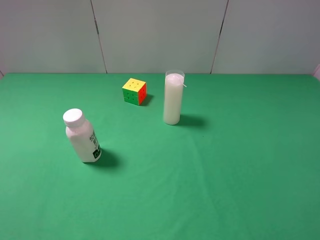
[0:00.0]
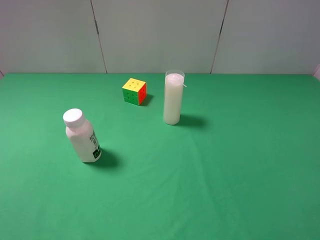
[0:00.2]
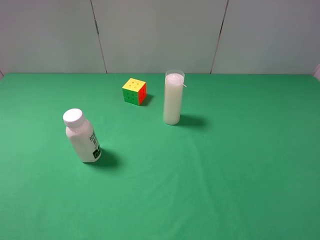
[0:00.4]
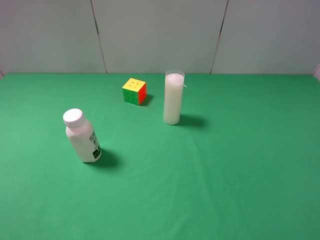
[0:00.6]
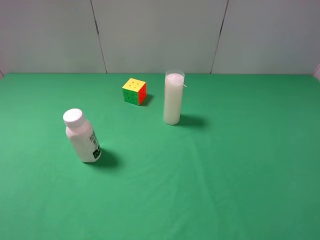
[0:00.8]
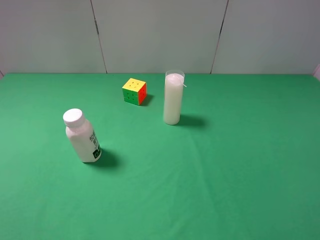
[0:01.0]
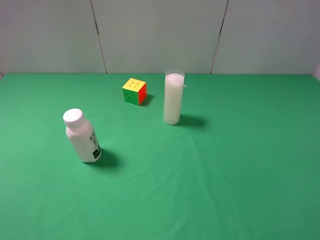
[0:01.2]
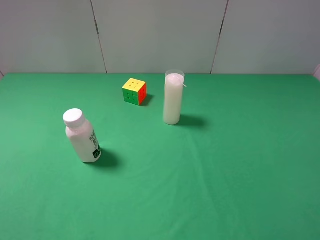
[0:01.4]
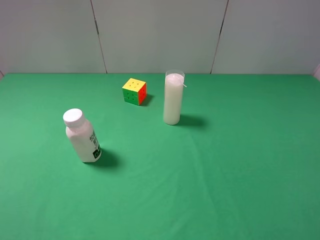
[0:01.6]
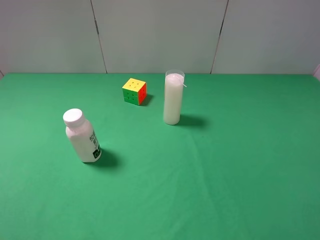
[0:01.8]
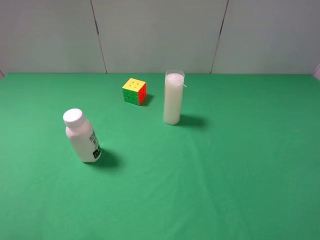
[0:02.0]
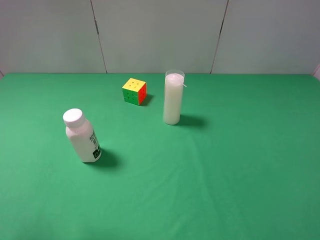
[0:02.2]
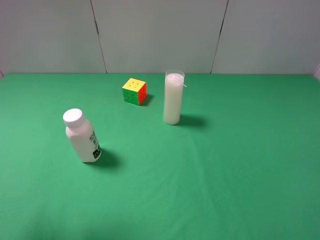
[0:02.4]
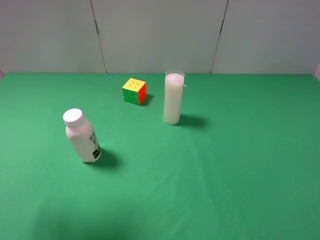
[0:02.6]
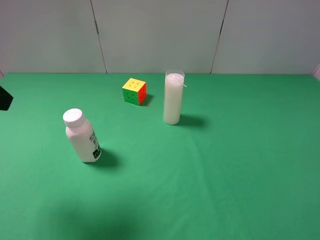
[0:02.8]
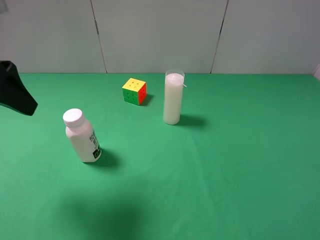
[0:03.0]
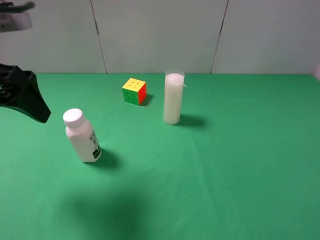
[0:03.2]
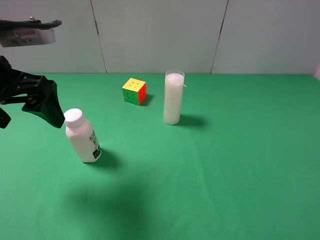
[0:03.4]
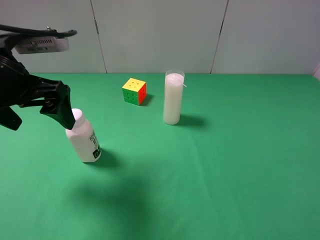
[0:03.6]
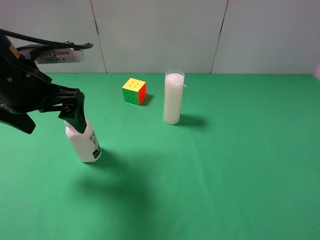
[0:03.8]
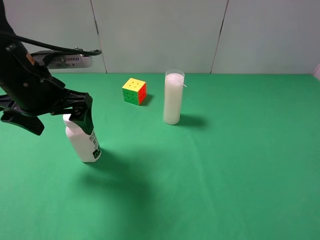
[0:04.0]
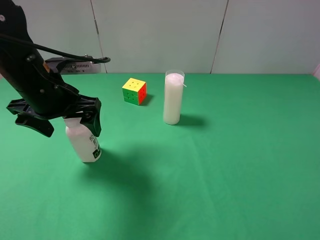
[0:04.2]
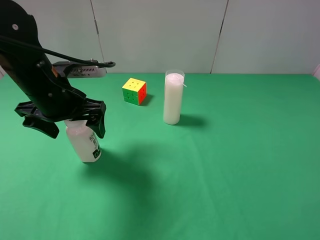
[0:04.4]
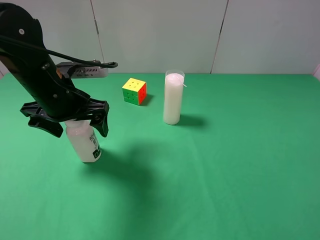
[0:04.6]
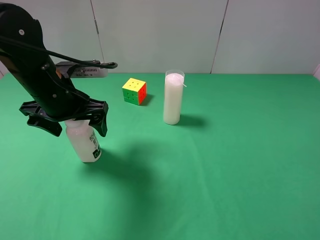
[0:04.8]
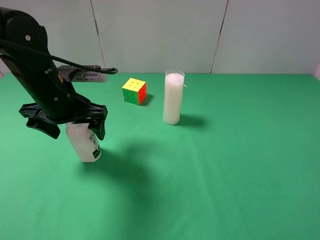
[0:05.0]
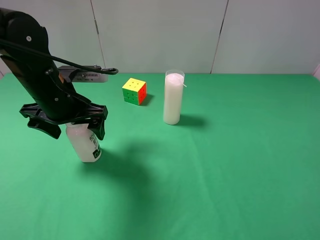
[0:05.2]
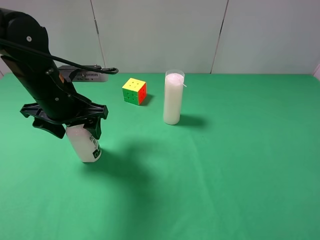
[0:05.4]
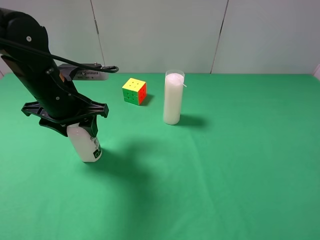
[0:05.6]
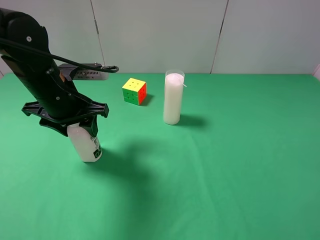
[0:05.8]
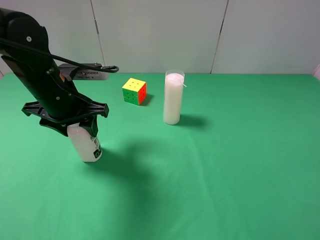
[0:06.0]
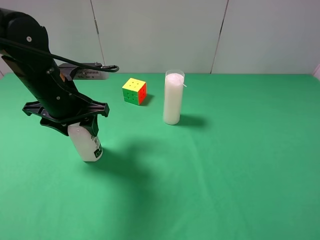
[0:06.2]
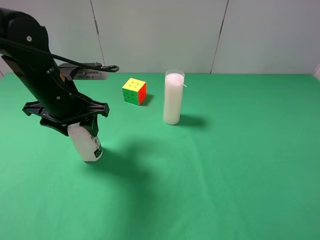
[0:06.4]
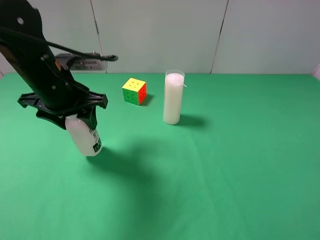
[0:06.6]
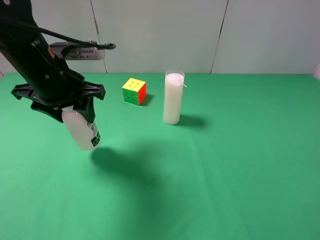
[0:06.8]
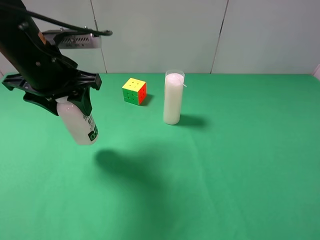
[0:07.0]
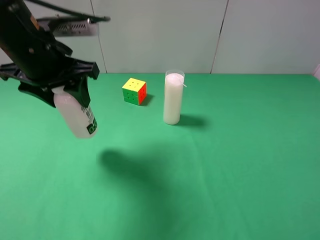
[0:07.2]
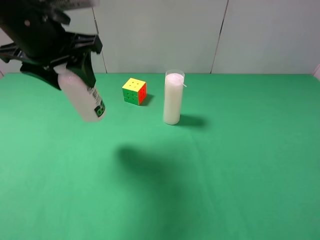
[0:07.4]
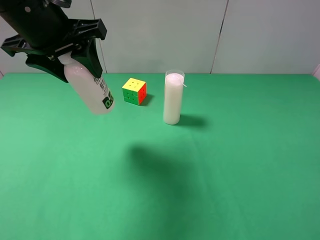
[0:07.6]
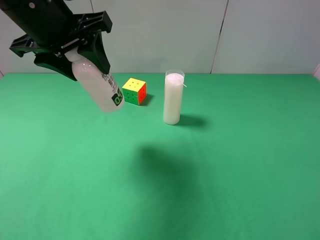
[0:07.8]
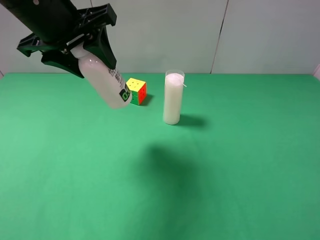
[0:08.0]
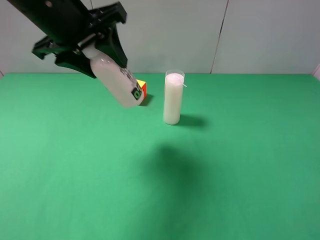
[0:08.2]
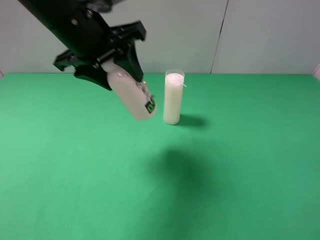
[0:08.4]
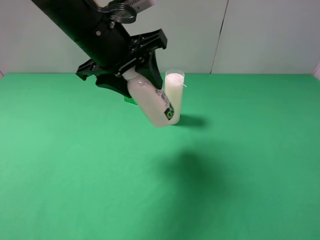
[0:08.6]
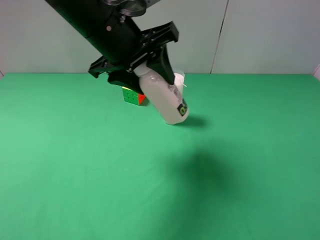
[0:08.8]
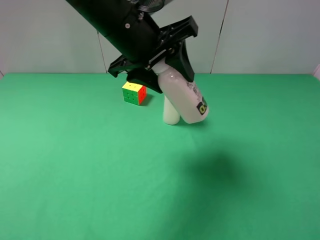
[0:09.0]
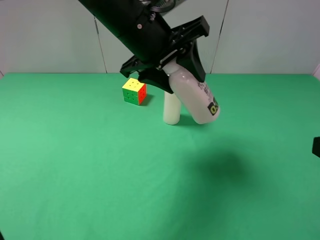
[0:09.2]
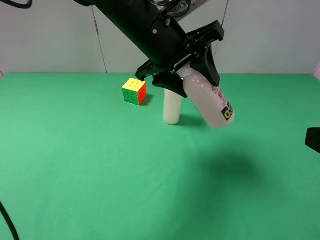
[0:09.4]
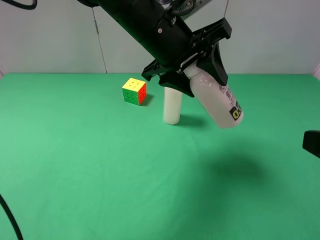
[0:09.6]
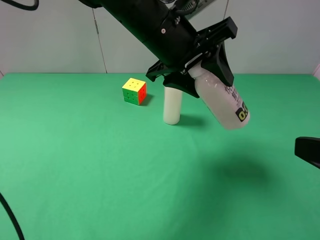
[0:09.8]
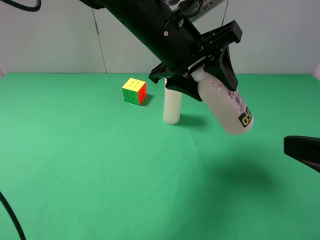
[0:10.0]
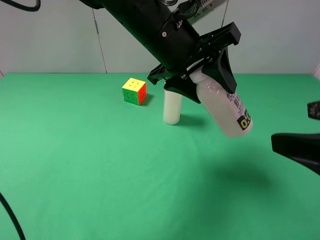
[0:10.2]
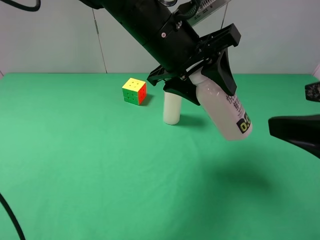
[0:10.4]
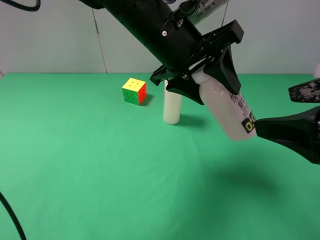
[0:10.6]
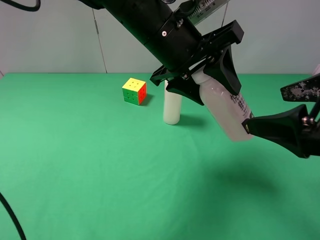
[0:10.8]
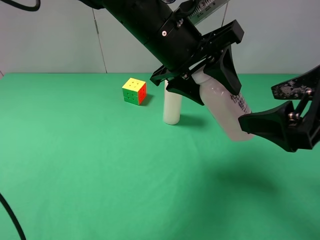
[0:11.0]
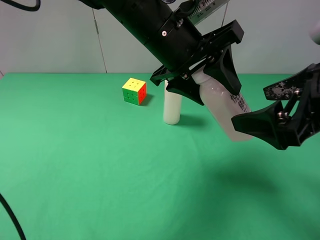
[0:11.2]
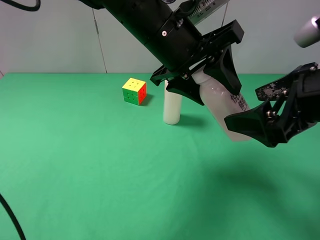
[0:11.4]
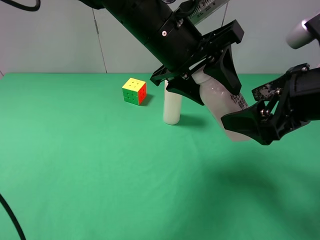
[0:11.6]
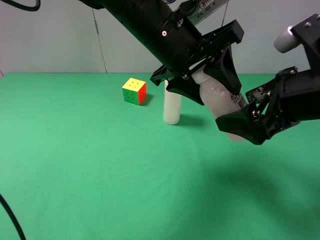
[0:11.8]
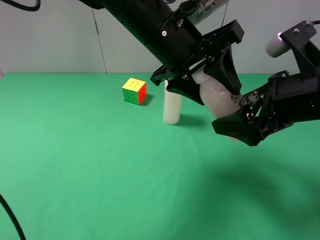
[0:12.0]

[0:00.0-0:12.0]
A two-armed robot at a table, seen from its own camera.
Task of the whole recording: use the left gripper to pick up the item and transfer it from the left gripper to the right gripper.
Step, 0:00.0 to 0:05.6: Use the left gripper to grab the milk on the left side of the table.
0:00.0 to 0:01.6: Neither gripper changes place.
0:01.6 to 0:03.0: The left gripper goes about 20 cm forward.
0:03.0 to 0:04.4: The left gripper heads downward, to the right and forward, covering roughly 15 cm.
0:04.4 to 0:06.0: The left gripper closes.
0:06.0 to 0:07.6: The left gripper heads upward, covering about 15 cm.
0:07.6 to 0:09.0: The left gripper heads to the right, covering about 10 cm.
0:09.0 to 0:10.4: The right gripper goes roughly 5 cm forward. The left gripper shifts by roughly 5 cm.
0:10.4 to 0:12.0: The right gripper shifts roughly 10 cm forward and downward.

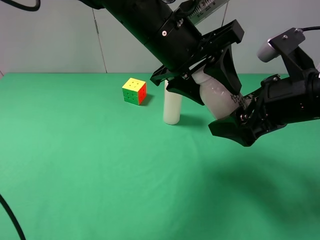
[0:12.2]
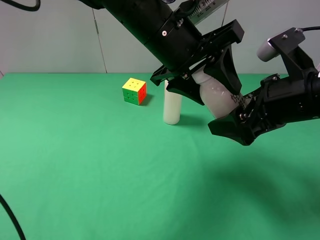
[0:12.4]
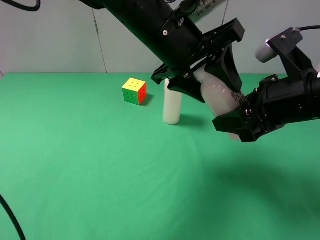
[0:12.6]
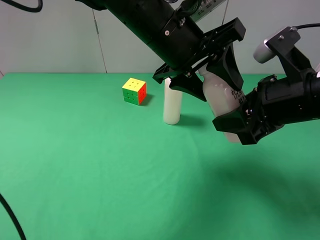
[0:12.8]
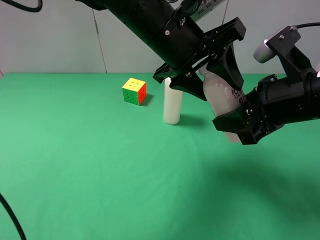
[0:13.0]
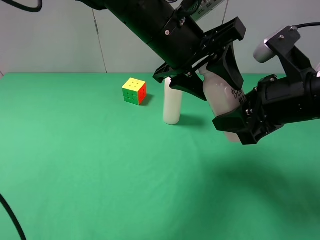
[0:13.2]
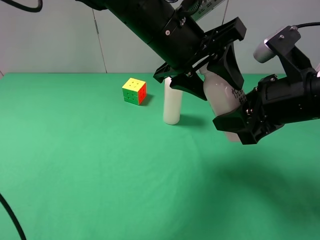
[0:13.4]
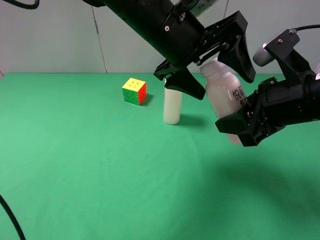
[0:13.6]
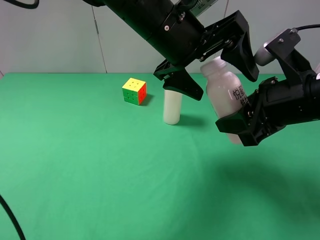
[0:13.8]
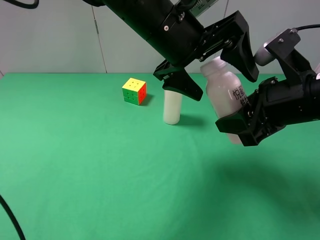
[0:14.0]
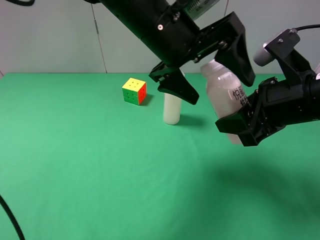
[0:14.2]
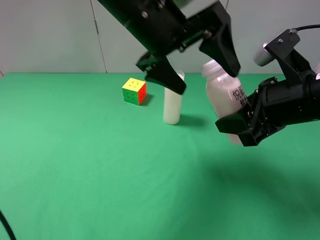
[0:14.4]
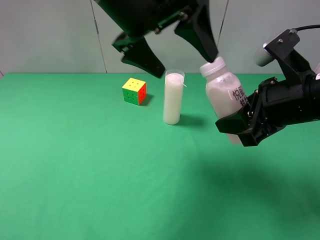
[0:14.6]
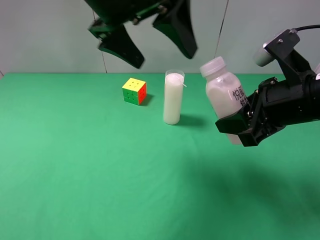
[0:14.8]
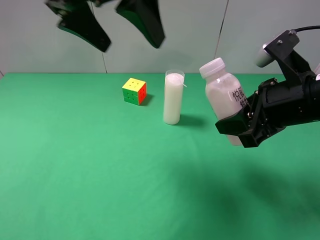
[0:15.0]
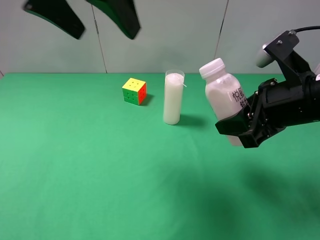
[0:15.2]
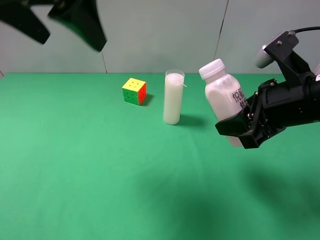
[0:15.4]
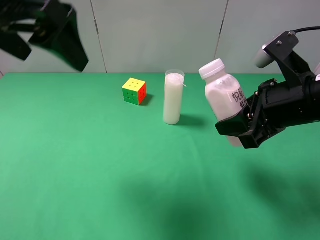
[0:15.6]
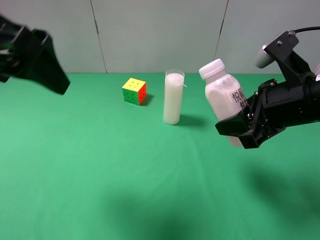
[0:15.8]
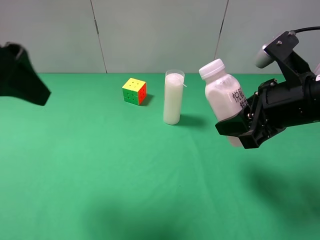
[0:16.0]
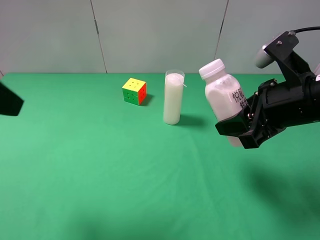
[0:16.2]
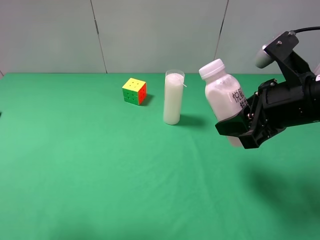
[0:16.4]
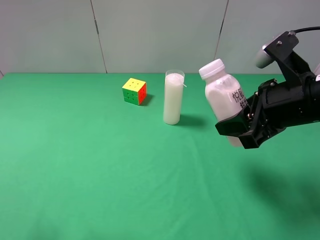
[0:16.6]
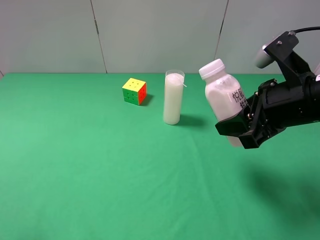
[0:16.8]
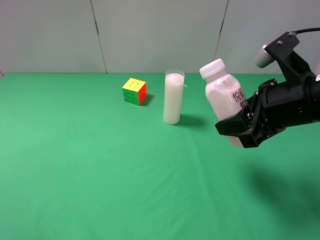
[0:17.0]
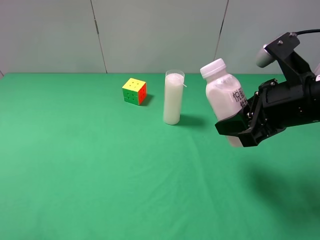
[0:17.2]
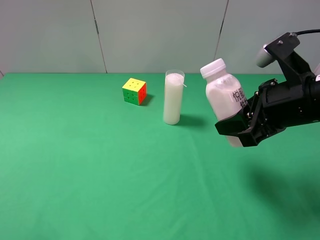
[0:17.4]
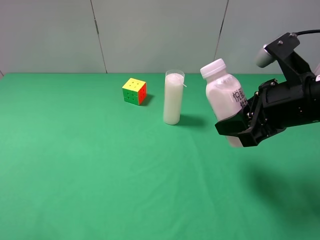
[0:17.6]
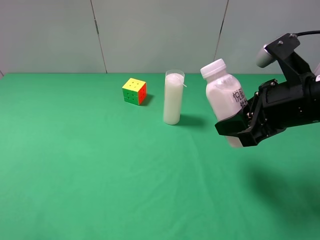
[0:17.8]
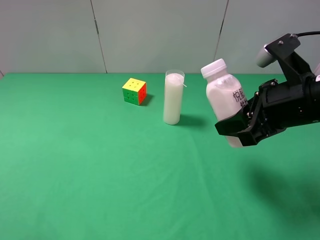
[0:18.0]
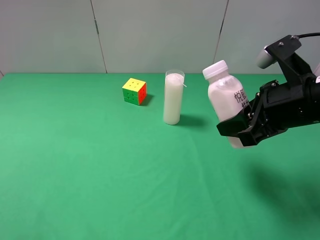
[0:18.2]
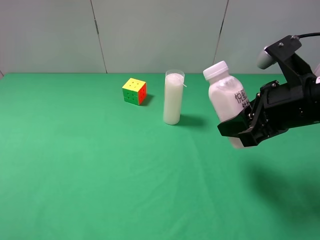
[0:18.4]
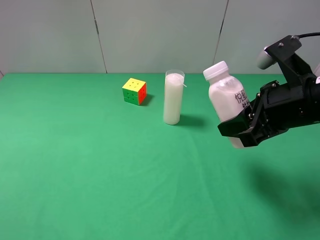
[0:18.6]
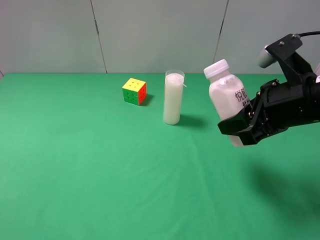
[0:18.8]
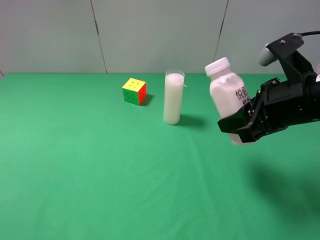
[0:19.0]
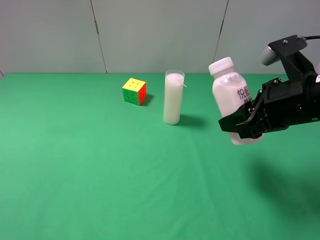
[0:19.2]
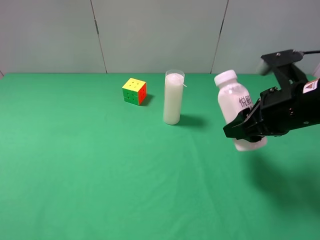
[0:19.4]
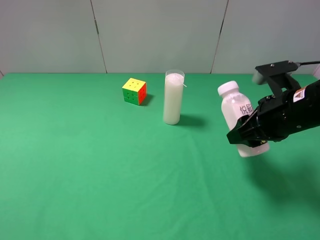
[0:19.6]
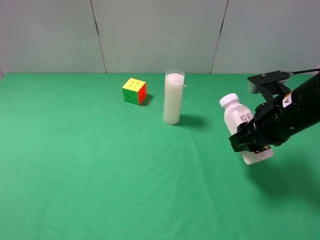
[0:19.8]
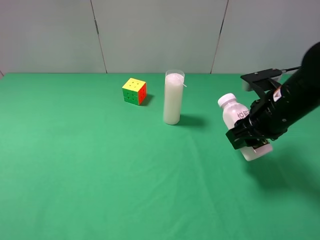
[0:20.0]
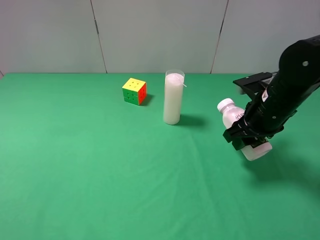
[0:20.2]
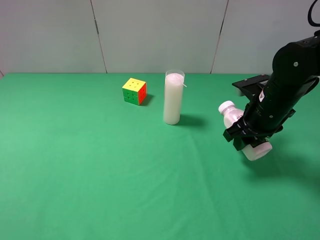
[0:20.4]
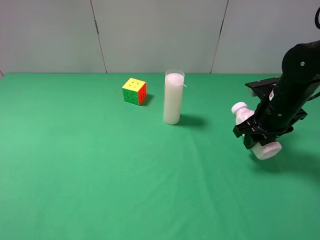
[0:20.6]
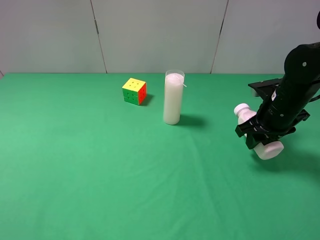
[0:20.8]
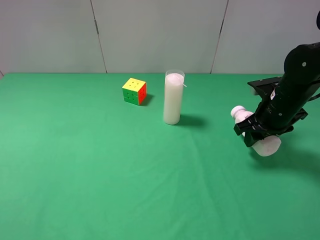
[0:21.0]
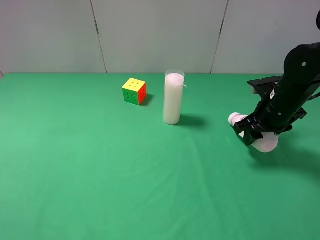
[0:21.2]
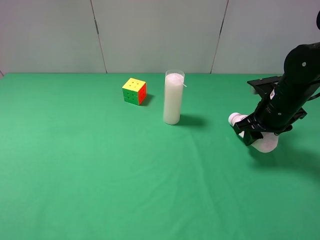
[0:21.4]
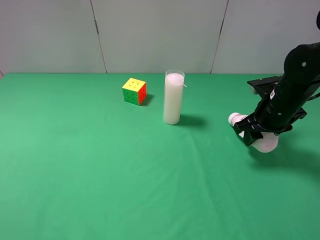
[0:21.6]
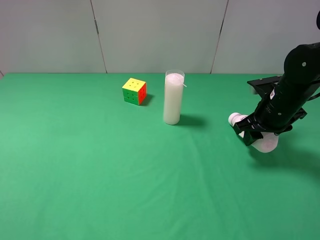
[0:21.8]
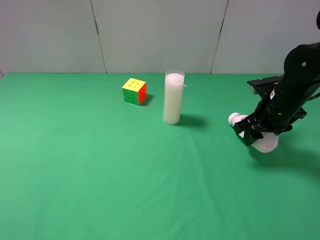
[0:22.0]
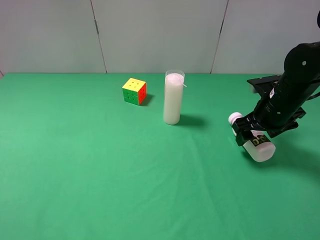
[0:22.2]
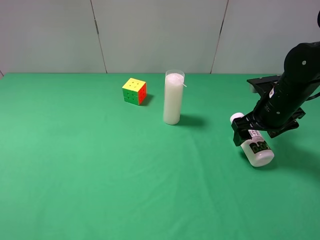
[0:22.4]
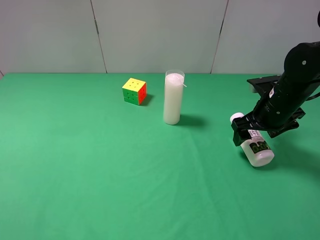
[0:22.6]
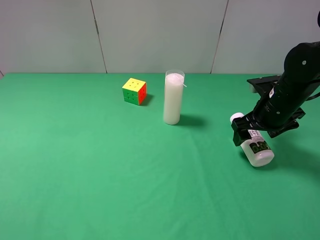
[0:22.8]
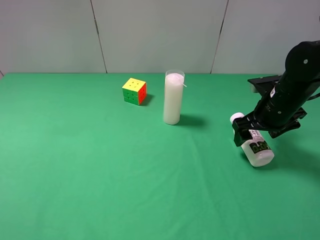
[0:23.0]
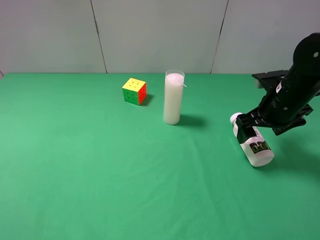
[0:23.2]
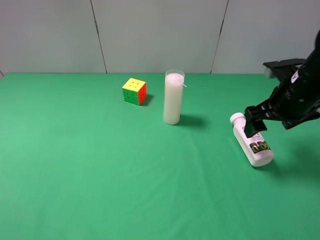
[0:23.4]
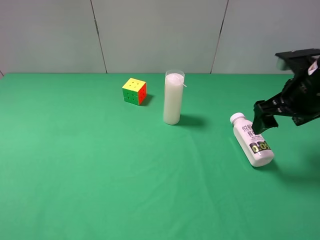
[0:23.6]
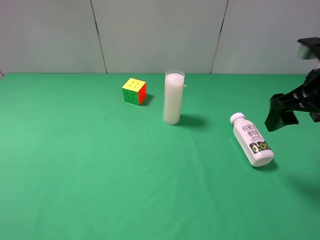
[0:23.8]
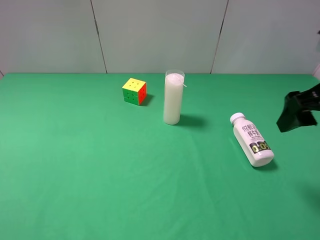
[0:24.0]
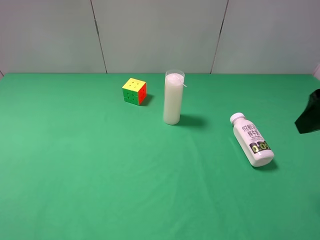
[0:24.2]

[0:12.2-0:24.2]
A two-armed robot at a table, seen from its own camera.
Task of the whole recording: use the left gripper to pick up the item and transfer it from the left gripper to the right gripper.
Step, 0:12.2 to 0:14.2: Pass the milk to the right gripper.
Step, 0:14.4 to 0:23.2: The right gripper places milk on the right side of the table.
0:12.2 to 0:13.8: The left gripper opens up, while the right gripper closes.
0:13.8 to 0:15.2: The left gripper heads to the left and upward, covering some 20 cm.
0:15.2 to 0:16.6: The left gripper heads backward, to the left and downward, covering about 25 cm.
0:18.2 to 0:19.8: The right gripper is displaced downward by approximately 5 cm.
0:19.8 to 0:21.2: The right gripper is displaced forward by approximately 5 cm.
0:21.2 to 0:22.6: The right gripper opens.
0:22.6 to 0:24.2: The right gripper heads upward and backward, covering approximately 20 cm.
